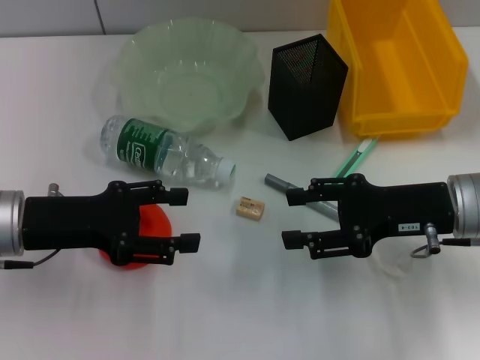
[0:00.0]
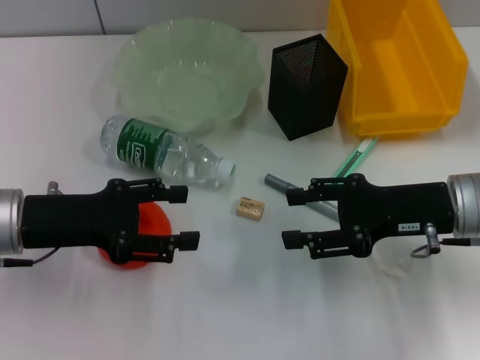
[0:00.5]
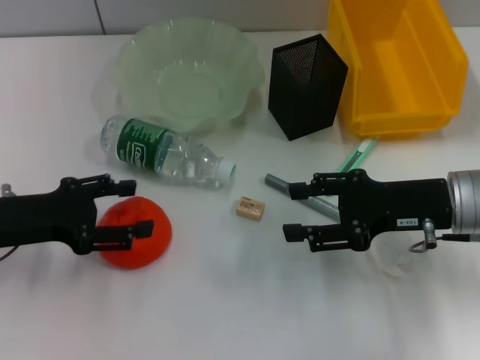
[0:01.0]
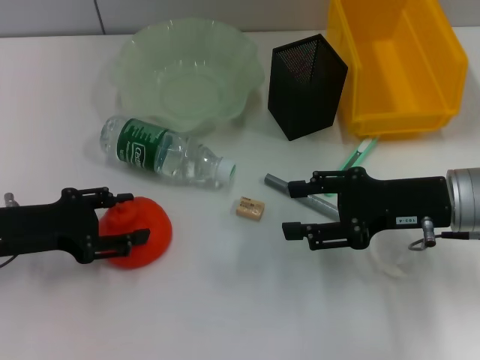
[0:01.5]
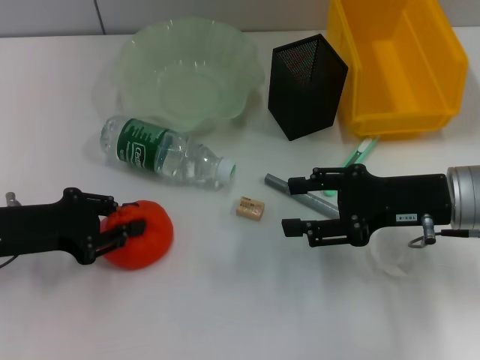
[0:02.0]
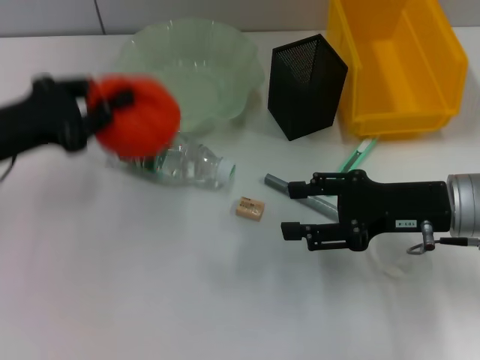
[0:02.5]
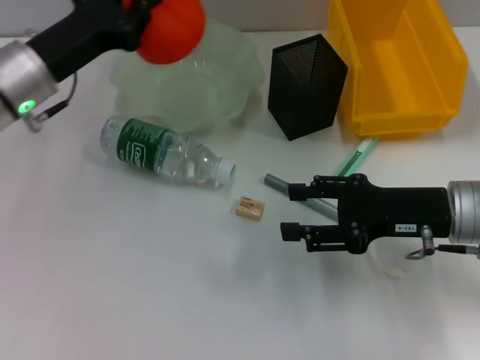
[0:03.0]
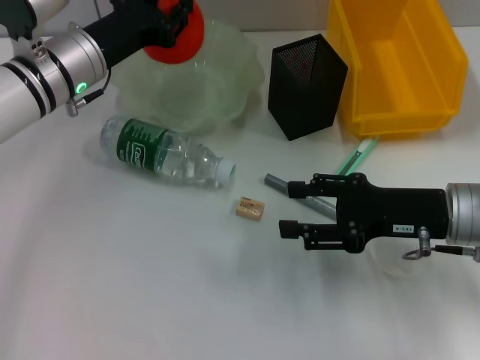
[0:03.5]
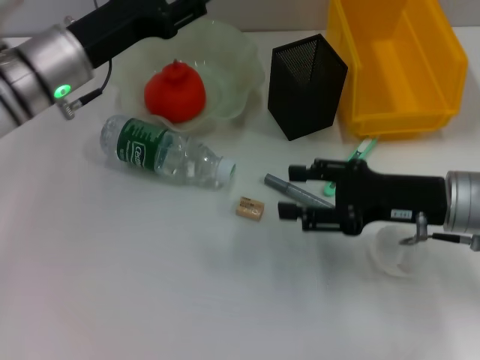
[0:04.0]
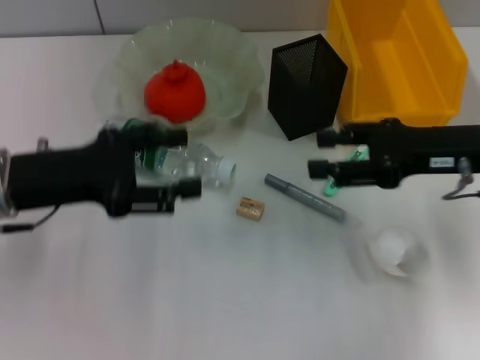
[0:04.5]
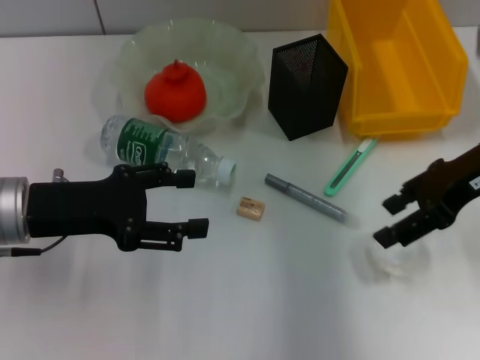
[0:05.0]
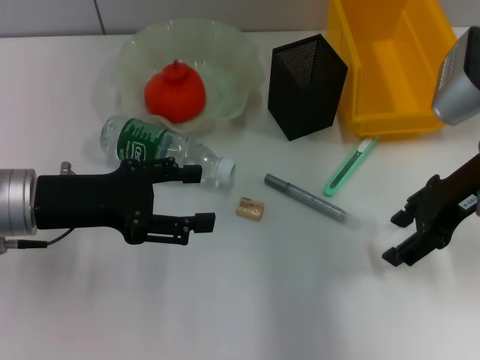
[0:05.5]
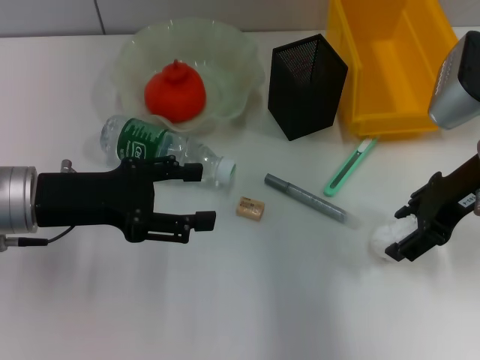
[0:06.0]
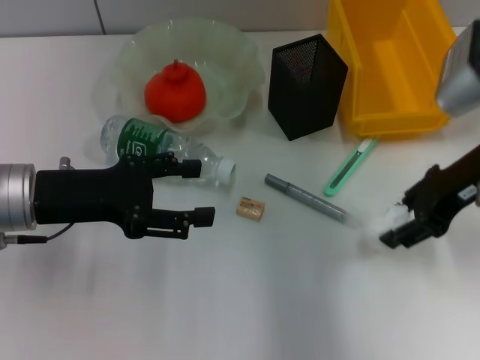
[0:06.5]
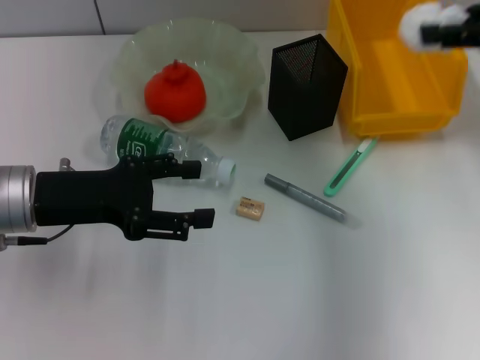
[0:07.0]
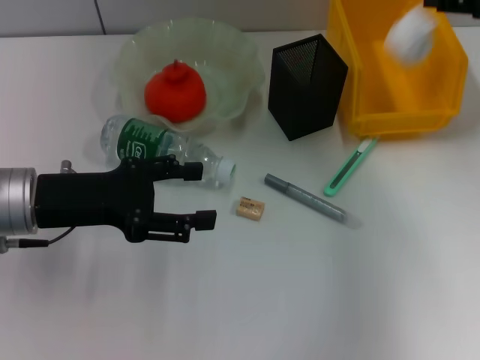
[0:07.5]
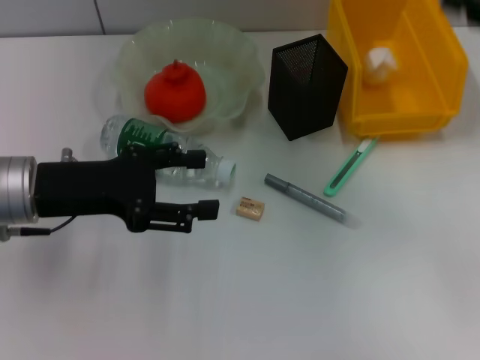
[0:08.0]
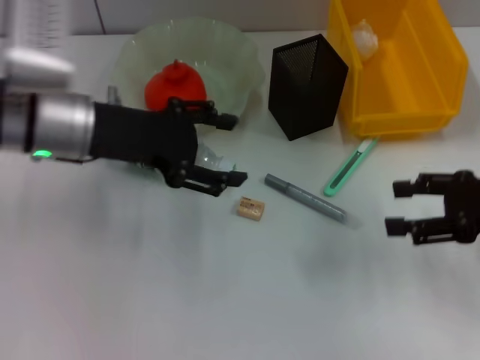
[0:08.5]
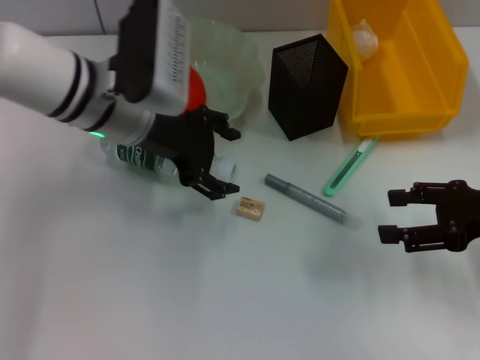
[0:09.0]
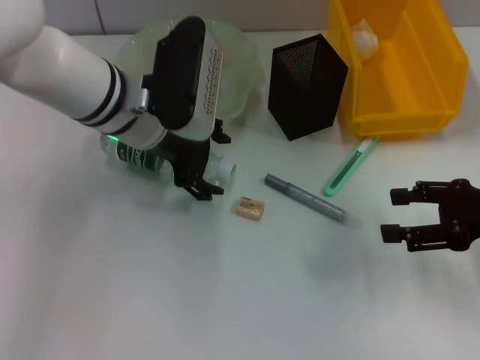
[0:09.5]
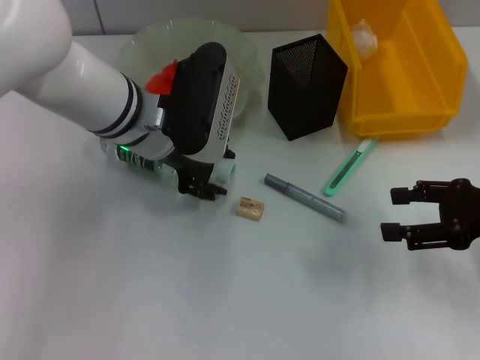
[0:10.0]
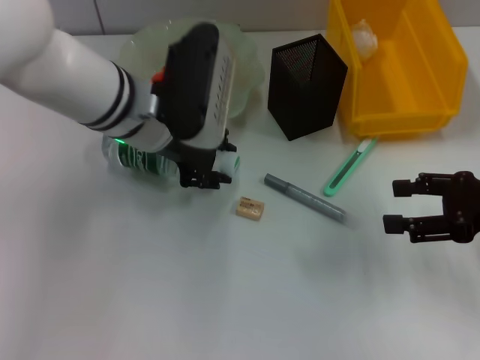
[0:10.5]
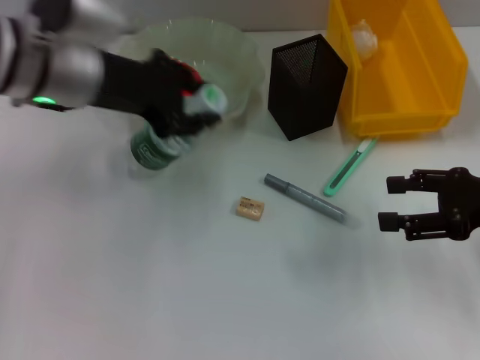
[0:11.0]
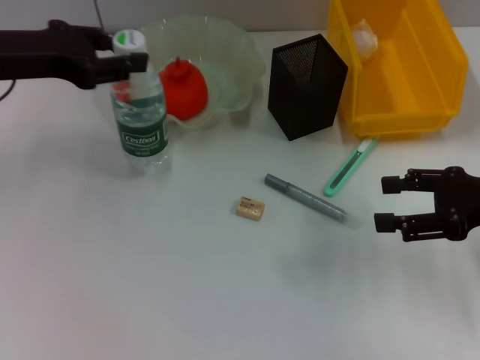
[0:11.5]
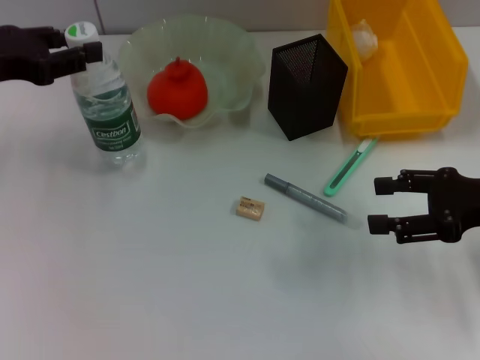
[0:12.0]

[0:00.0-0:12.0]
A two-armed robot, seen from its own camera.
Step, 0:00.0 to 0:01.5: Grab the orange with the left hand.
Step, 0:02.0 to 0:03.5: Place the orange into the fruit bowl with the left hand.
Step, 0:04.0 to 0:06.0: Grab the paper ball with the right hand.
Step, 0:06.5 to 0:07.5: Place the paper ball into the trash can with the right hand.
Step, 0:08.0 to 0:10.0: Grab the water bottle with the left hand.
0:00.0 to 0:02.0: The left gripper closes up.
0:02.0 to 0:04.0: The left gripper travels forward, to the right and upward by approximately 15 cm.
0:04.0 to 0:06.0: The left gripper moves backward, approximately 10 cm, and opens its fingers. The right gripper is displaced upward by about 5 cm.
0:06.0 to 0:08.0: The right gripper is displaced to the right by some 10 cm, and closes, then reopens.
0:08.0 to 0:10.0: The right gripper shifts approximately 10 cm downward. Meanwhile the left gripper goes about 15 cm to the right and forward.
0:10.0 to 0:12.0: The left gripper heads to the left, covering approximately 20 cm, and closes up.

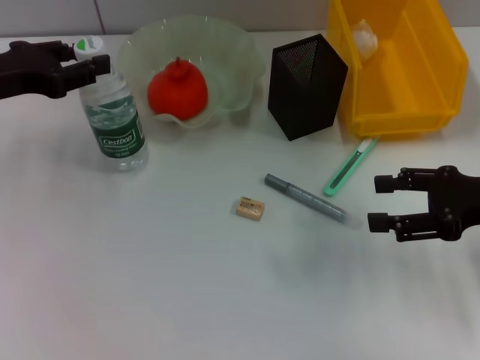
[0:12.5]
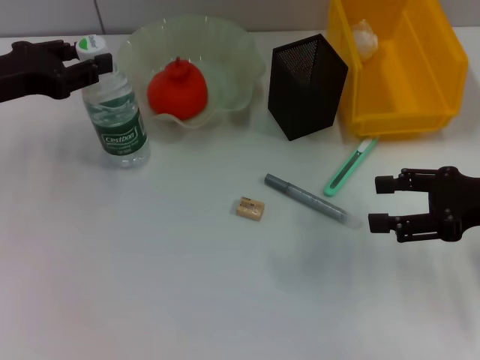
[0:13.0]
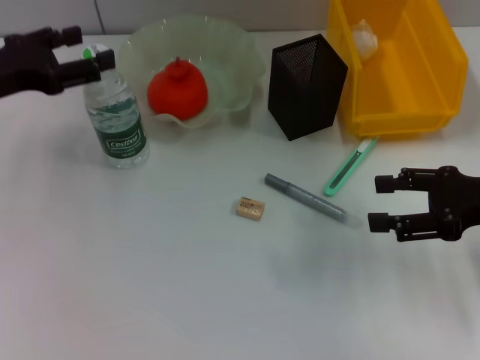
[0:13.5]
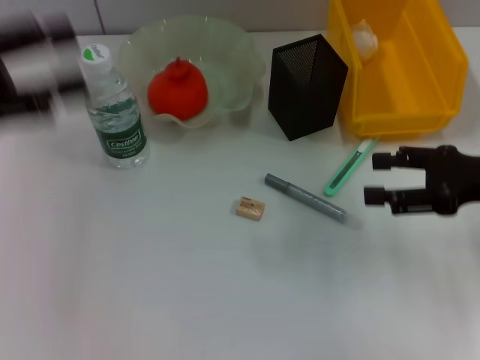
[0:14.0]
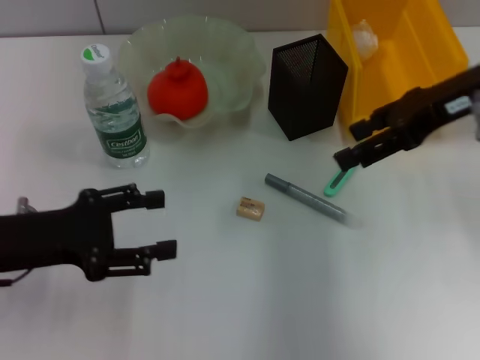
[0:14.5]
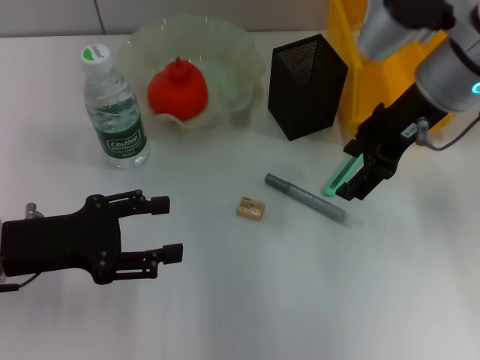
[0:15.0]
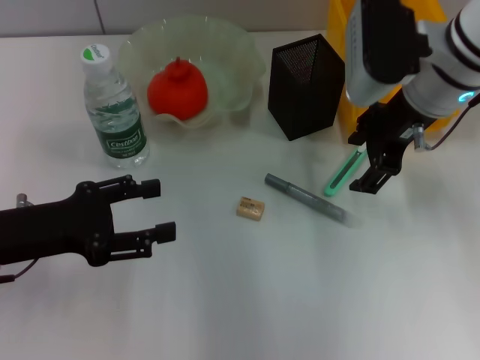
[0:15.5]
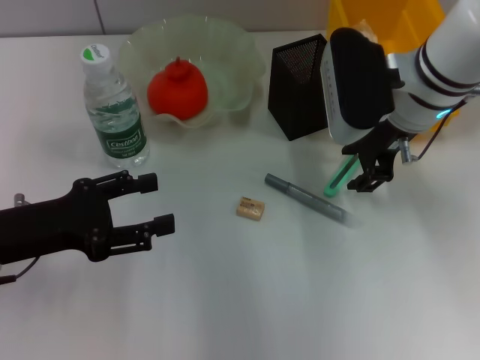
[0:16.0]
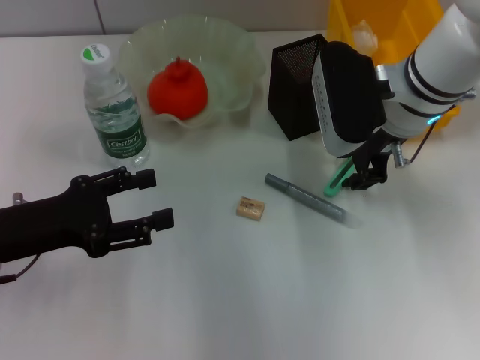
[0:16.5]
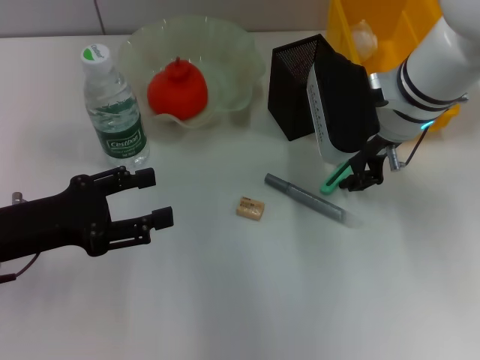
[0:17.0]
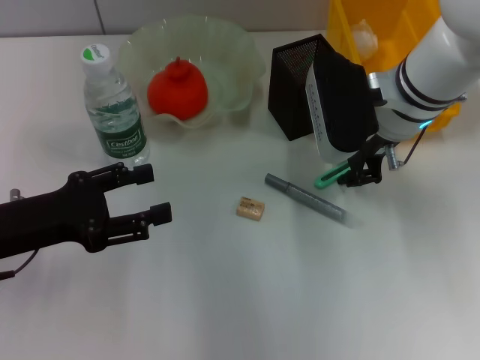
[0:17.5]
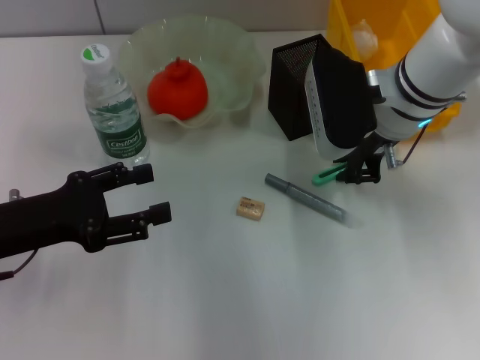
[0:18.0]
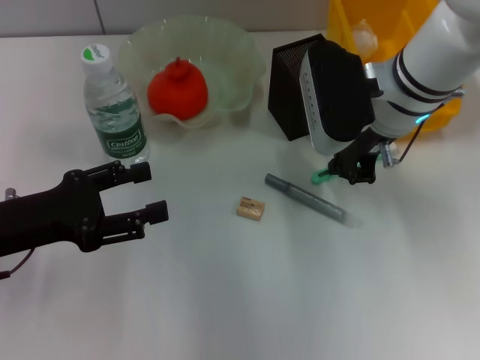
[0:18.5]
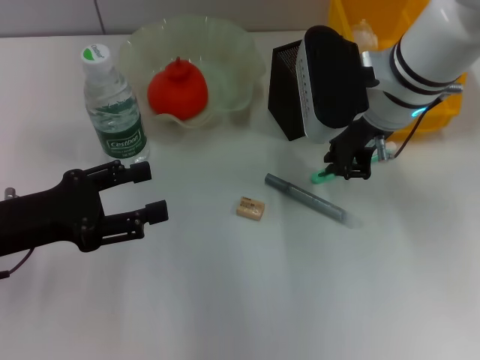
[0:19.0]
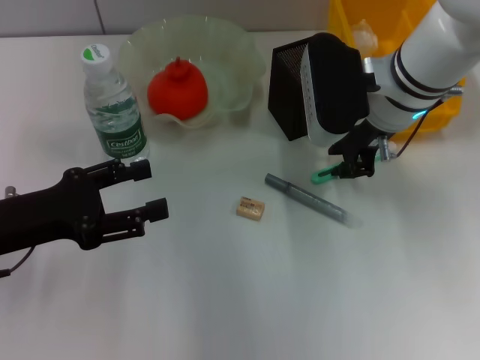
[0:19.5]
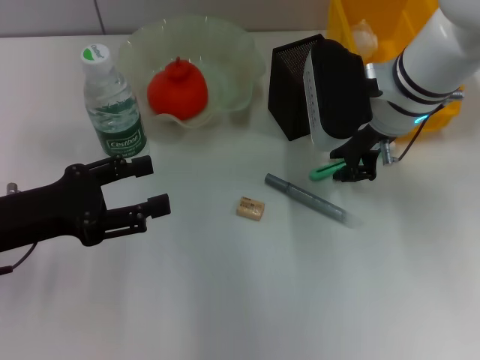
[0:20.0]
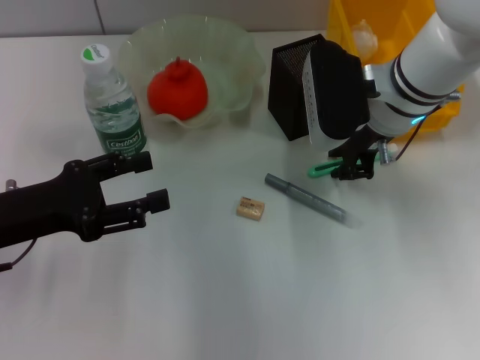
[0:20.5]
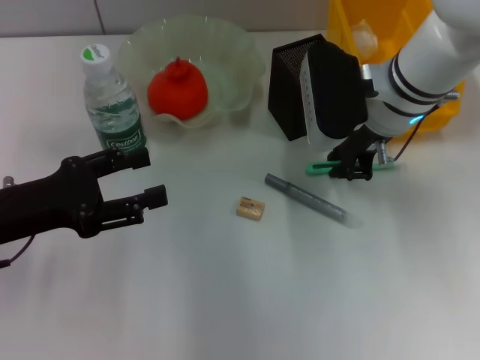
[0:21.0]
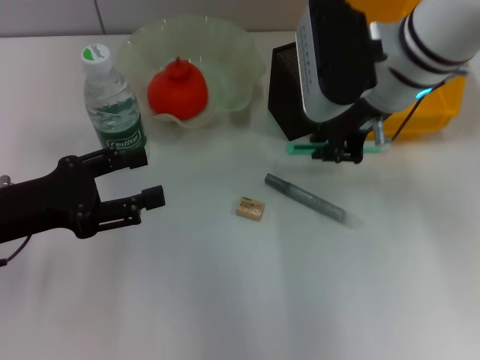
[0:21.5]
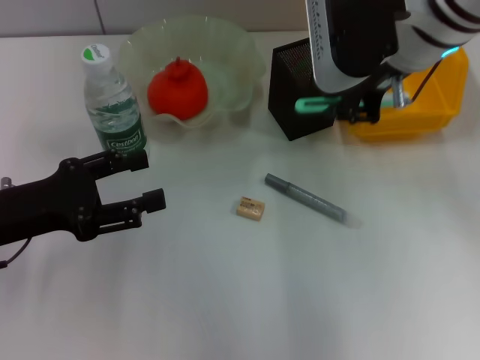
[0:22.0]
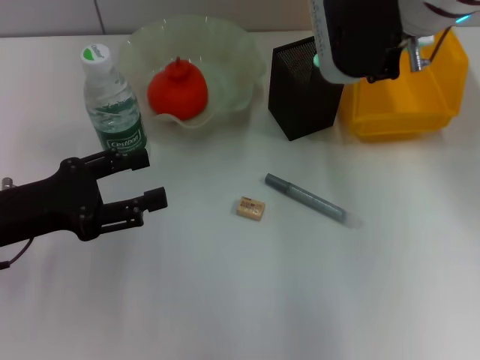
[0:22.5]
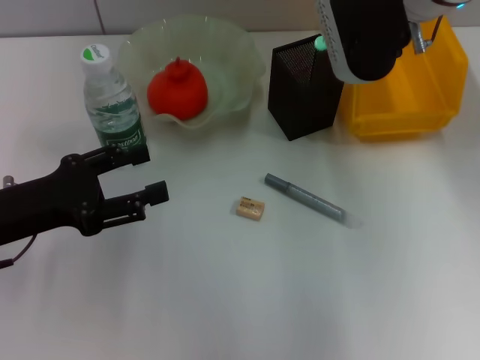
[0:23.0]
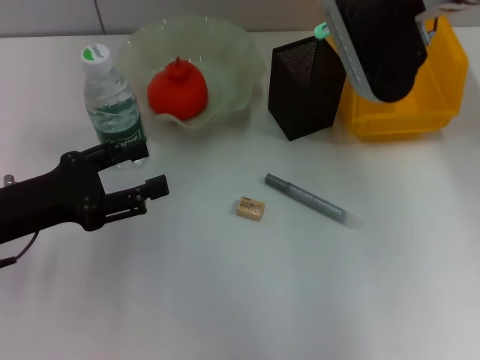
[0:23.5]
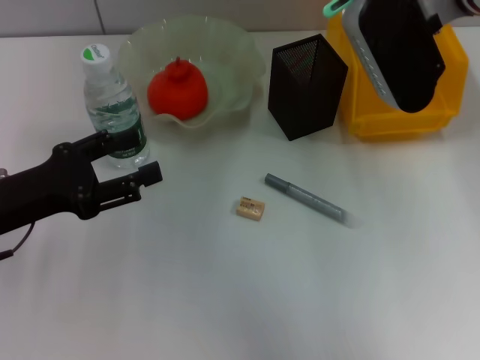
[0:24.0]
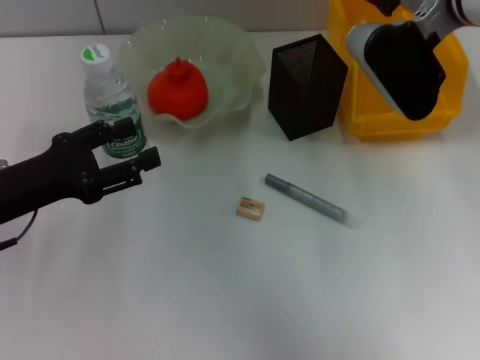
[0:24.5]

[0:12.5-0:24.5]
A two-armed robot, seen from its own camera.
Step, 0:13.5 to 0:20.5: Grab the blue utility knife with the right hand.
0:12.5 to 0:14.5: The right gripper goes roughly 15 cm upward, forward and to the left; the left gripper moves backward and downward, some 10 cm, and opens.
0:14.5 to 0:16.5: The right gripper moves to the left and downward, approximately 10 cm, and closes its fingers.
0:16.5 to 0:18.5: The right gripper closes its fingers.
0:18.5 to 0:20.5: The grippers move only a little.
0:20.5 to 0:22.5: The right gripper shifts roughly 15 cm upward.
0:22.5 to 0:24.5: The right gripper shifts roughly 5 cm downward.

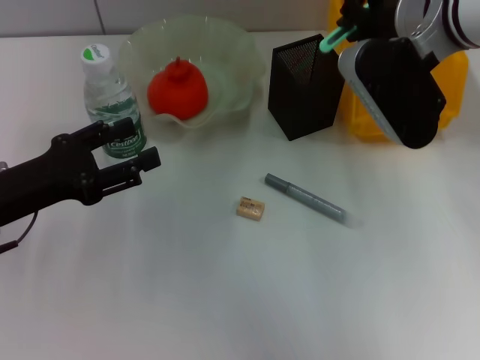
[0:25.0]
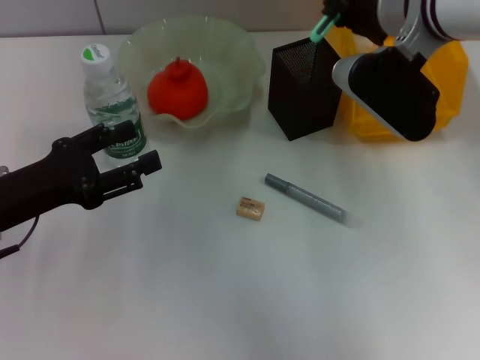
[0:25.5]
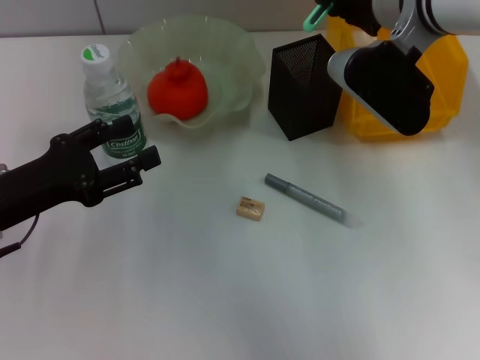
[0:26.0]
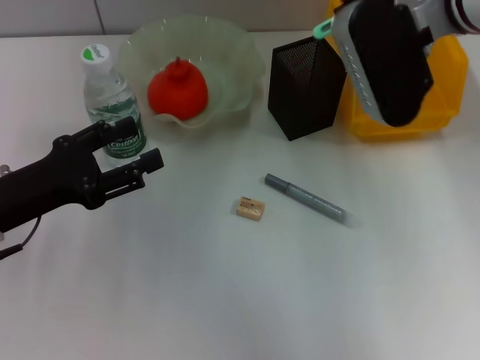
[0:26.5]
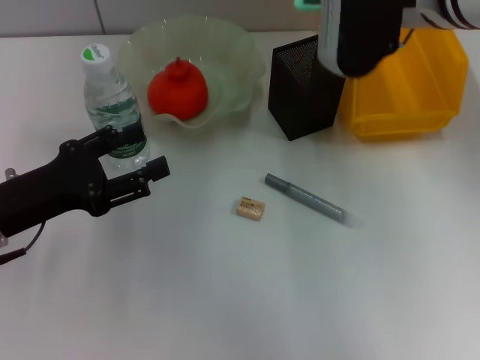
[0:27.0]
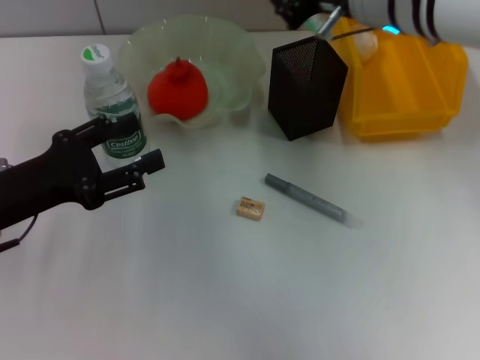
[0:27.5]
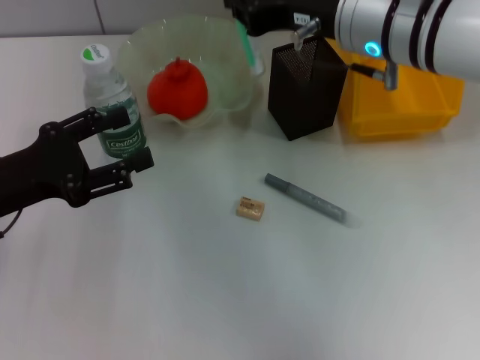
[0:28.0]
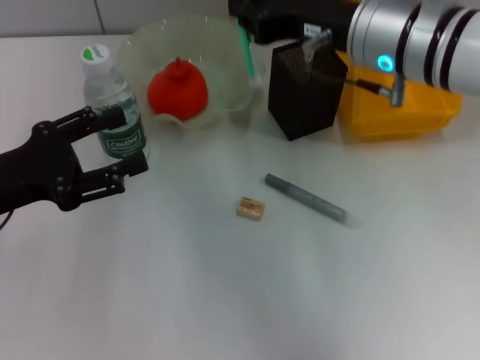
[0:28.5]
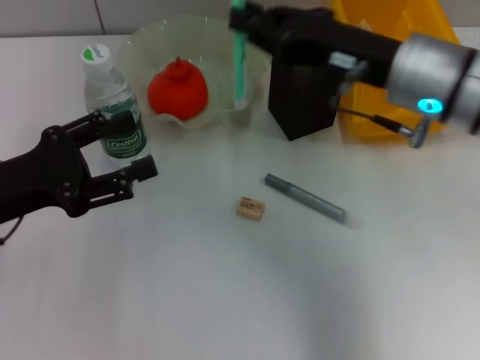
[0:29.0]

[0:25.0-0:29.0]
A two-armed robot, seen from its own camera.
0:27.0 to 0:29.0: The right gripper goes roughly 10 cm downward and backward.
